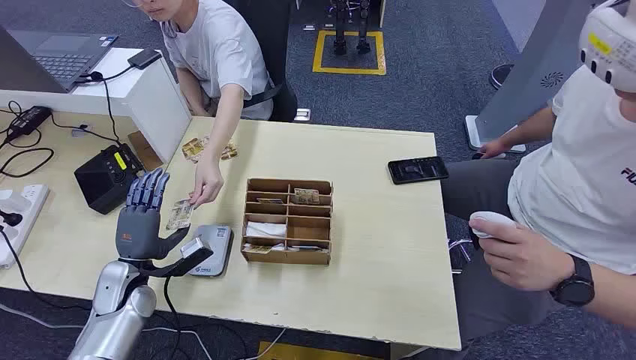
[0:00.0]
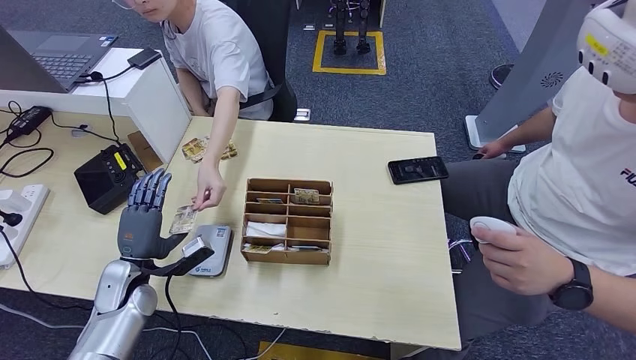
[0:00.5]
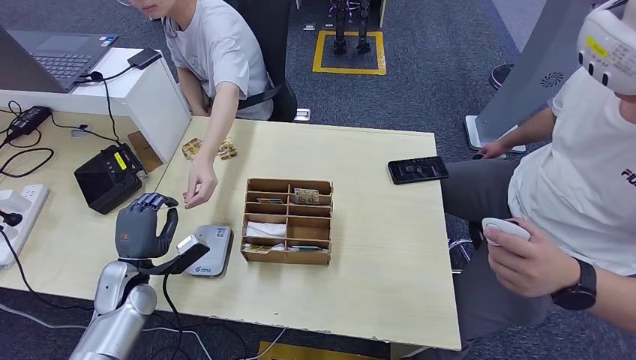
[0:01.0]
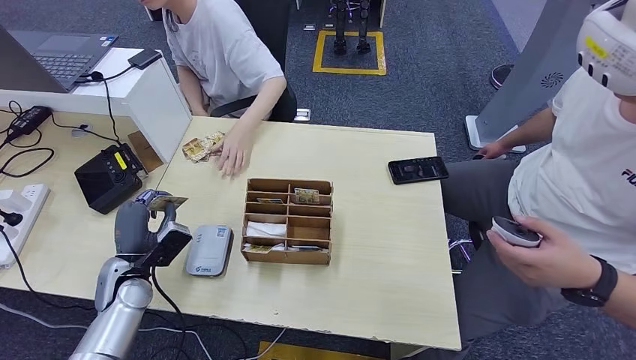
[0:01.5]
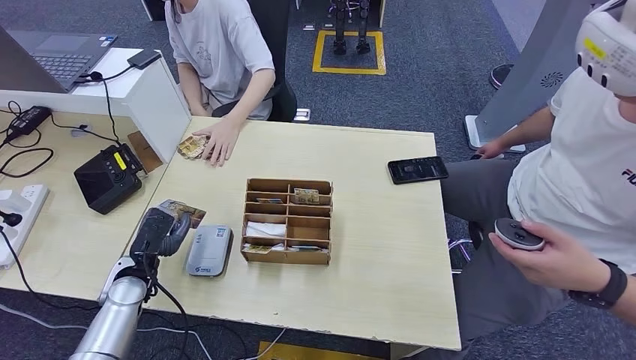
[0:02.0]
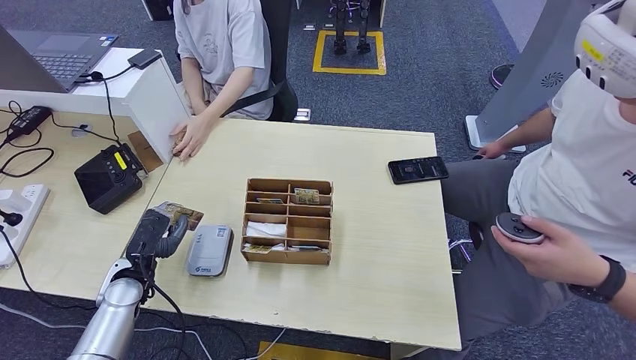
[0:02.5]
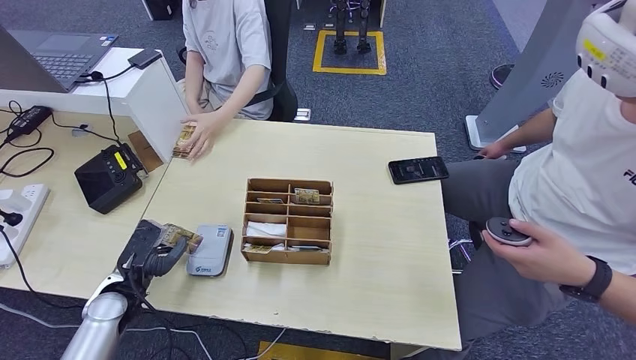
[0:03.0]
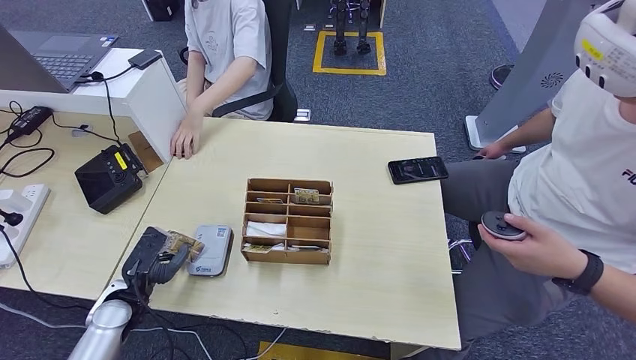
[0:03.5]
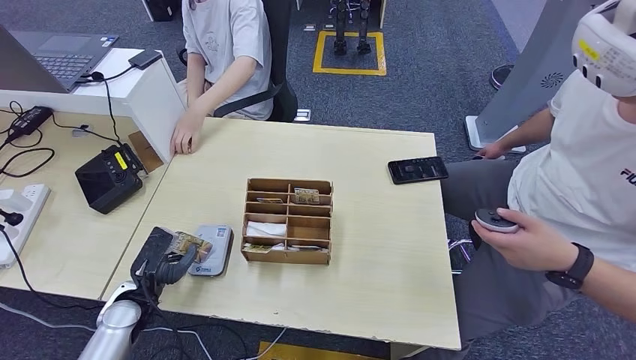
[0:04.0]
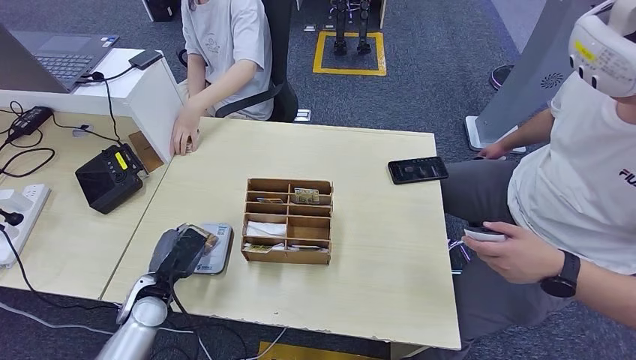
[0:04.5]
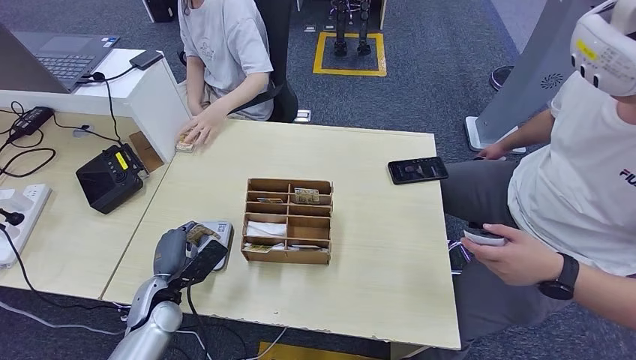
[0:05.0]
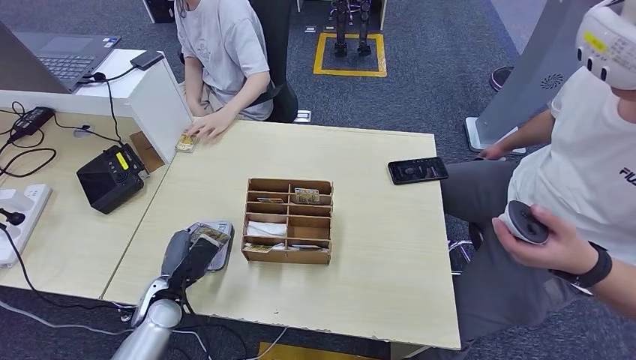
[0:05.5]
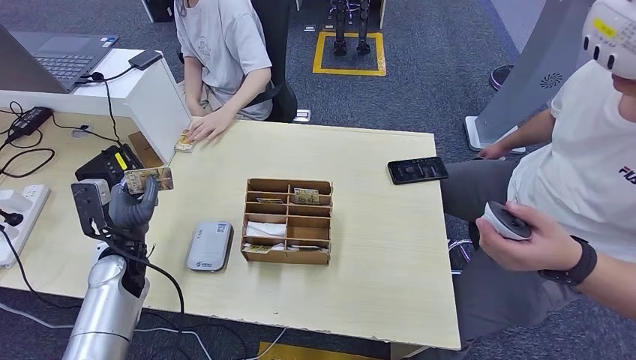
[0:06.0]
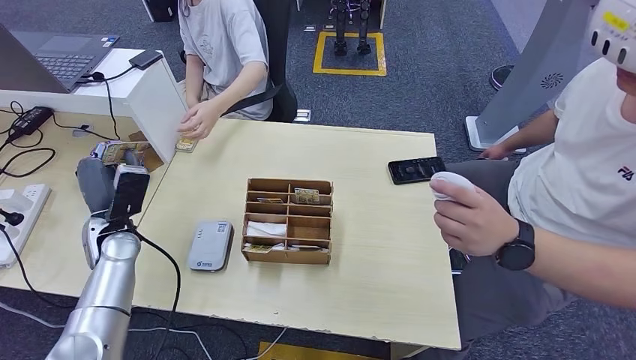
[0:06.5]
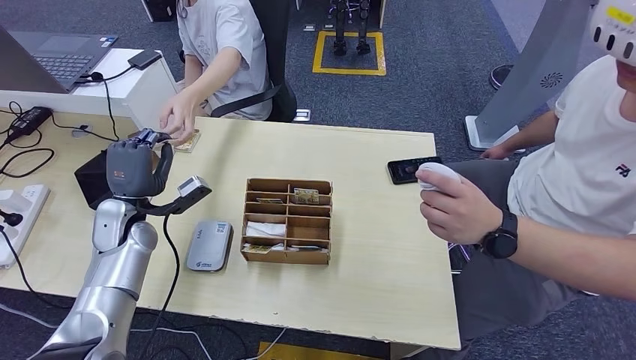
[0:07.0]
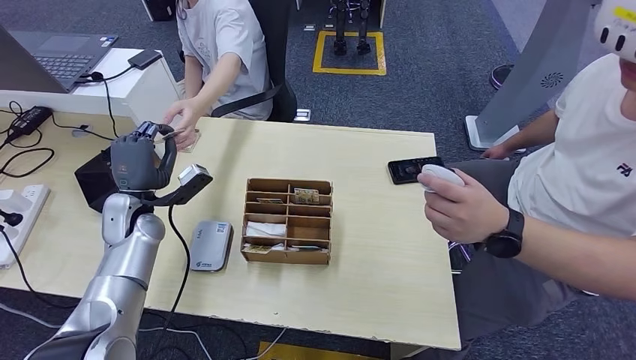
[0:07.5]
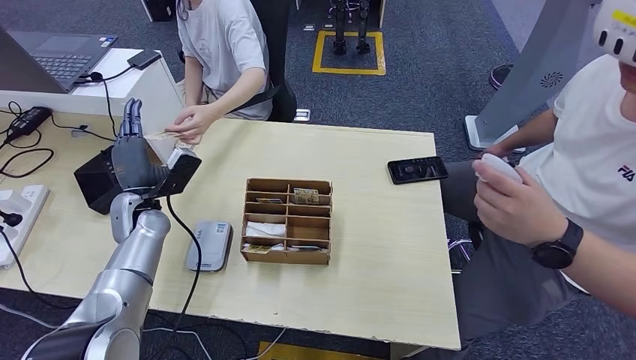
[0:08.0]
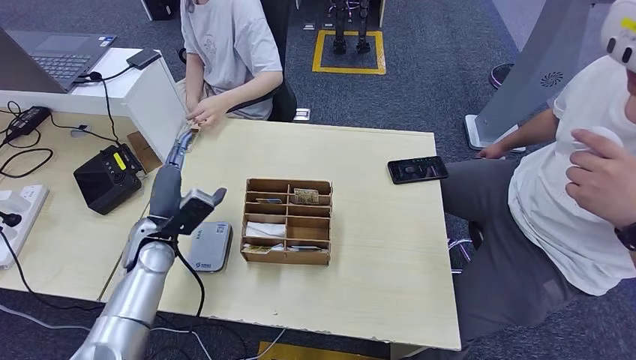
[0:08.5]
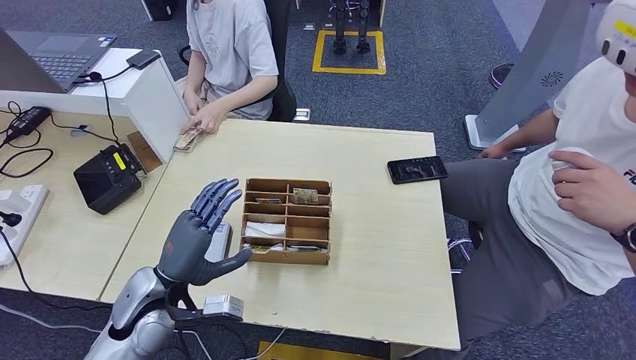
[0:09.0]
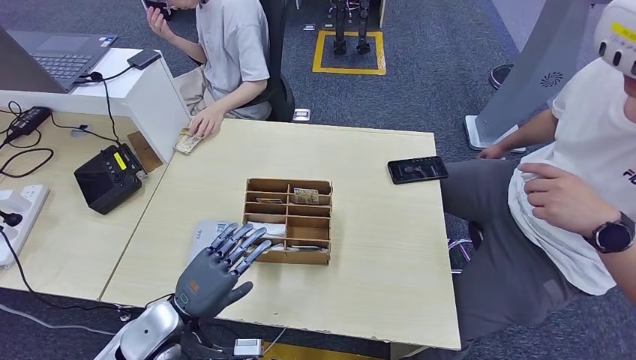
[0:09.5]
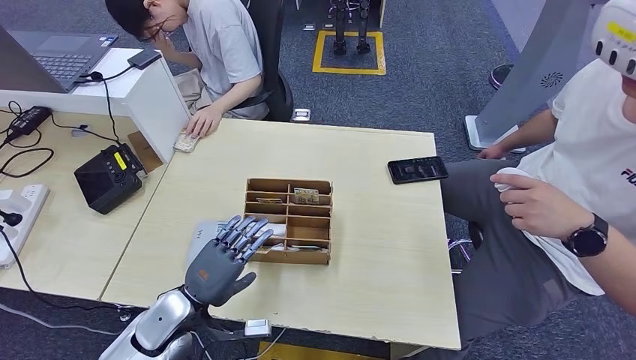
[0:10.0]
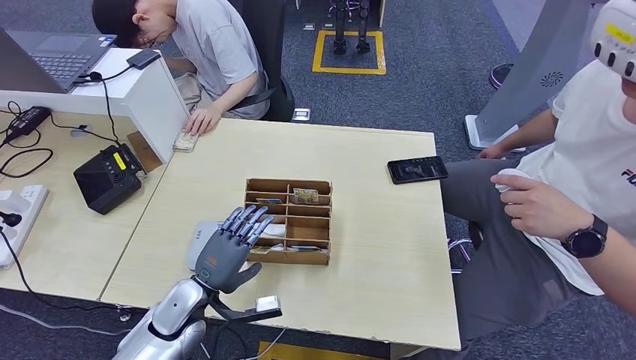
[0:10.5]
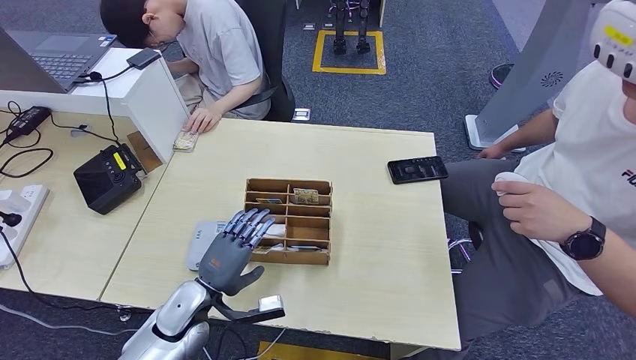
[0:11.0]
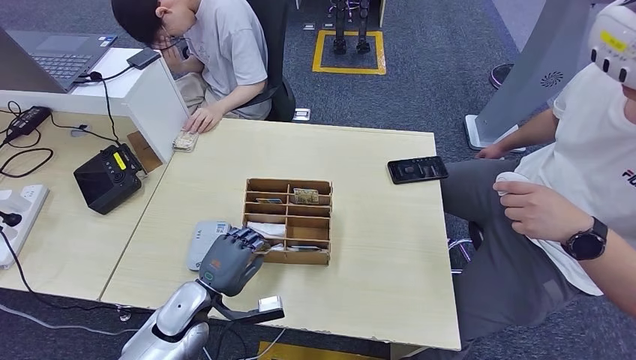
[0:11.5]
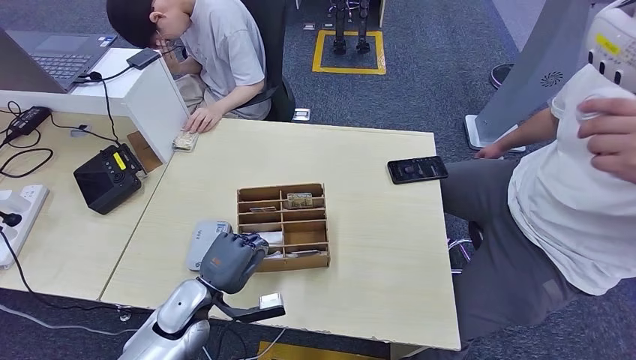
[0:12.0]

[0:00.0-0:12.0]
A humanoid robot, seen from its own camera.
Step, 0:00.0 to 0:02.0: Take the ID card from the person's hand.
Step, 0:03.0 to 0:04.5: Place the ID card on the card reader.
Step, 0:05.0 to 0:08.5: Hand the ID card to the person.
0:02.0 to 0:04.0: The left hand ends up about 5 cm from where it was.
0:04.0 to 0:06.0: The left hand travels upward and forward by about 10 cm.
0:06.0 to 0:08.0: The left hand heads forward, covering some 10 cm.
0:08.0 to 0:10.0: The left hand travels backward, to the right and downward by approximately 20 cm.
0:10.0 to 0:12.0: The hands stay close to where they were, moving slightly.

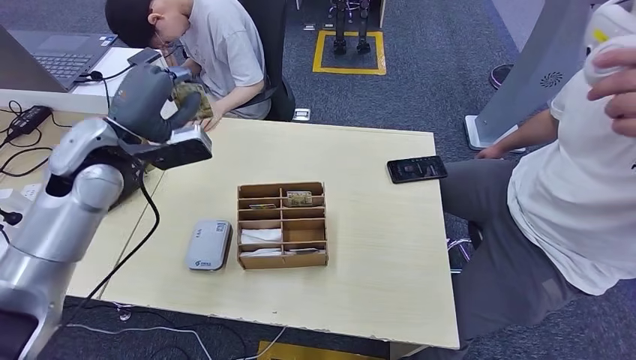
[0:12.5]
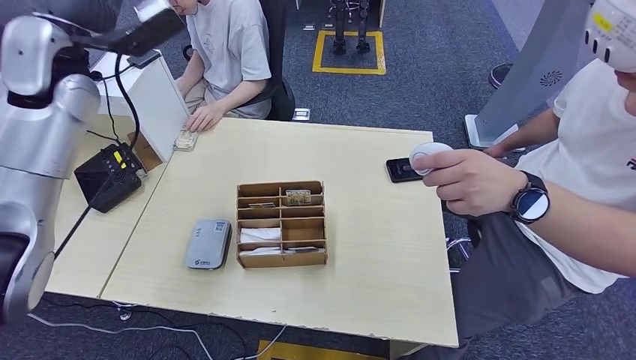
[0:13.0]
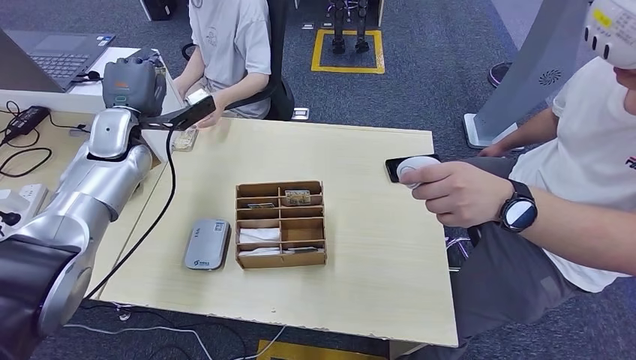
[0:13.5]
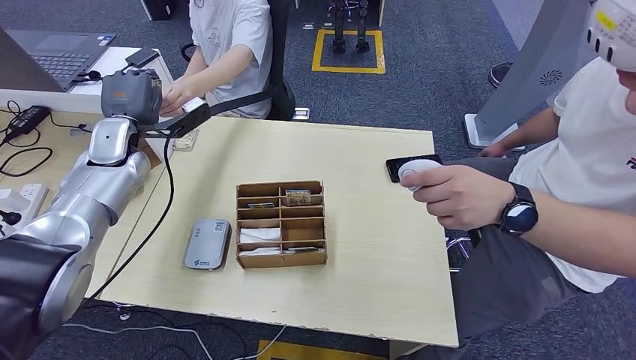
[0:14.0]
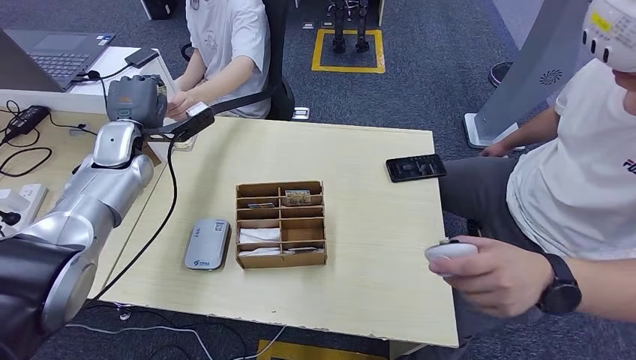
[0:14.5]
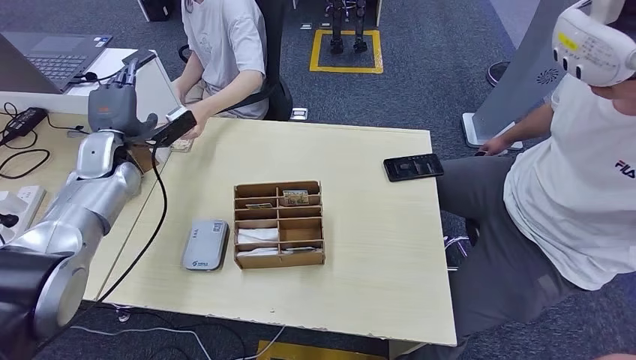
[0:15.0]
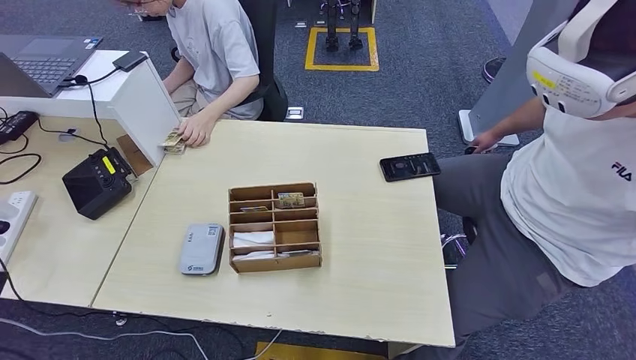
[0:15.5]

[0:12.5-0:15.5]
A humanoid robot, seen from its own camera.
Step, 0:13.5 to 0:15.5: Hand the room key to the person.
